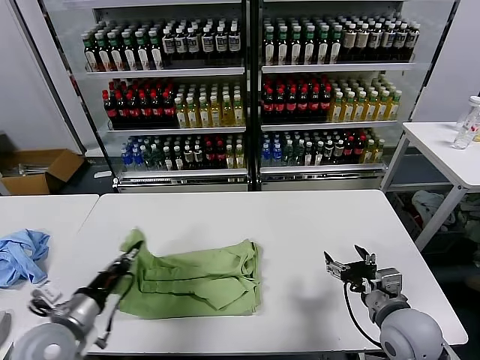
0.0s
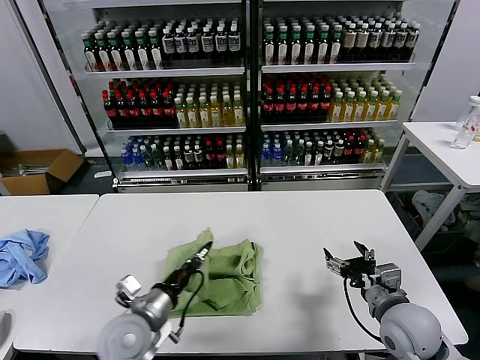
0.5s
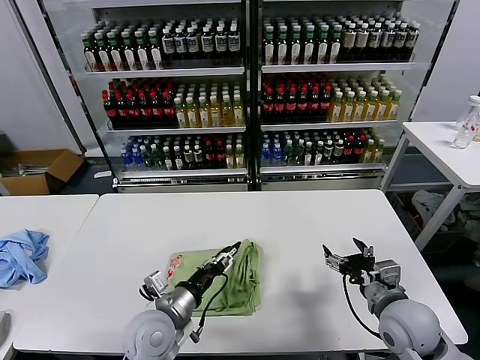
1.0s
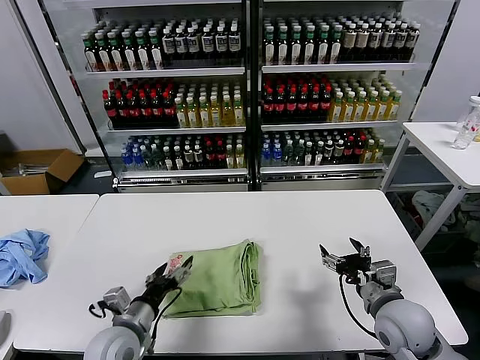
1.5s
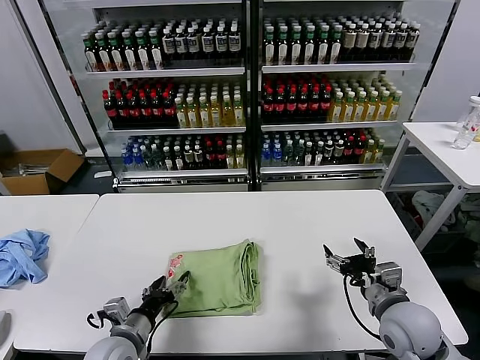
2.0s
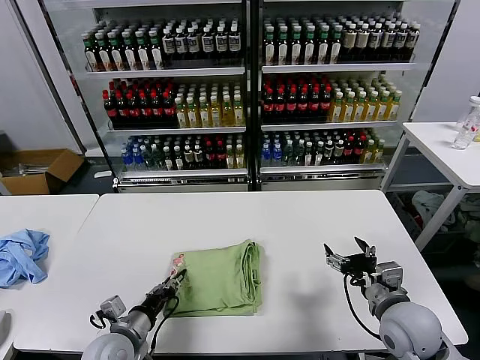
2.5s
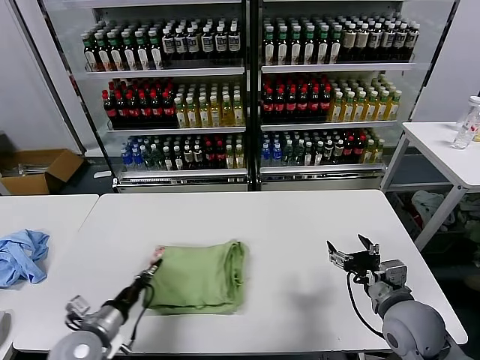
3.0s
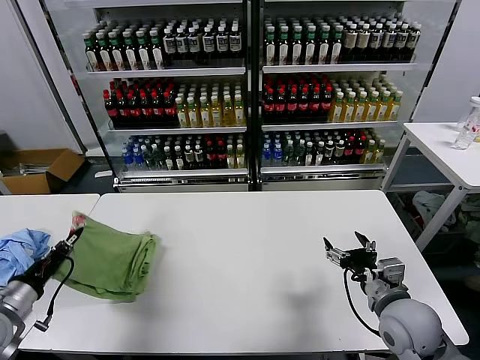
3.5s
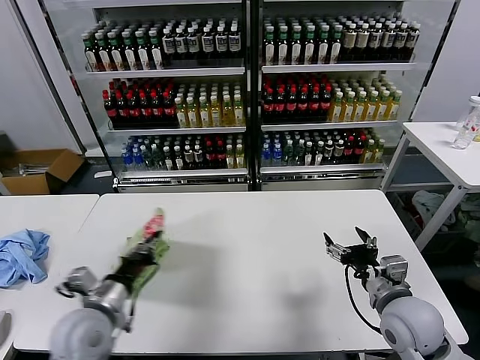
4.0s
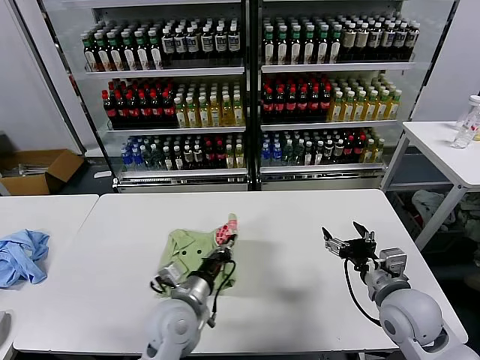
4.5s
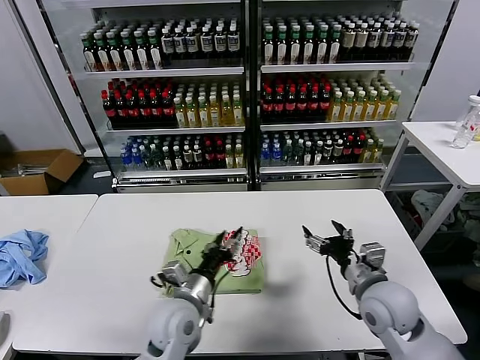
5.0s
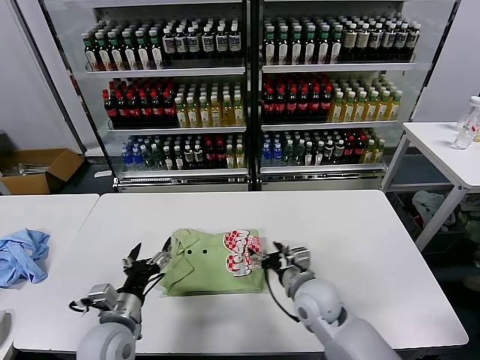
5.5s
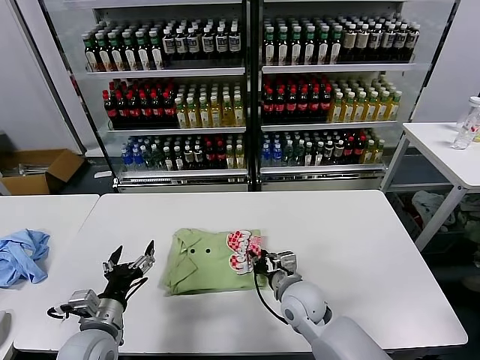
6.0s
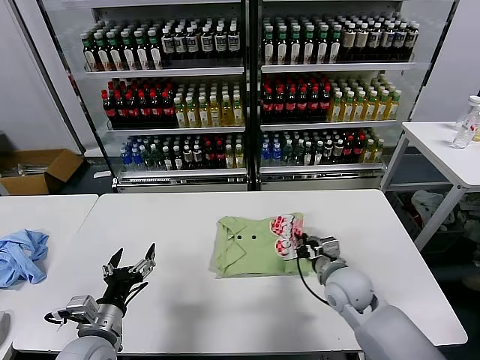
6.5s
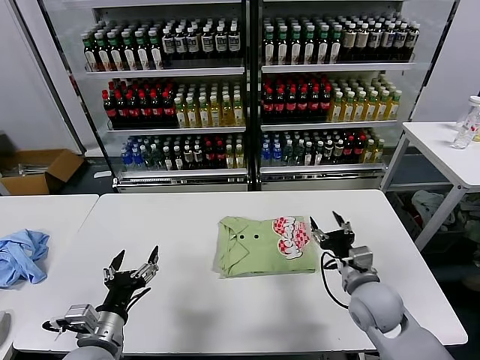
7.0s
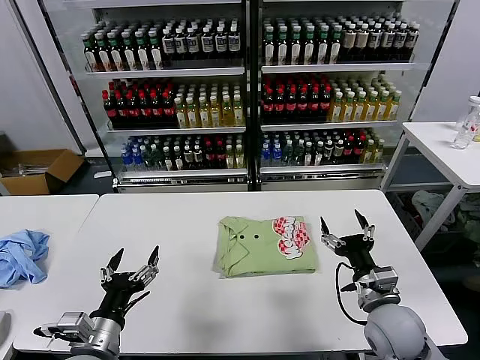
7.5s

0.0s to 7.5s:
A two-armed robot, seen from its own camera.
Task of the whole recording: fold and organize the clothes.
Step, 0.0s to 1.0s: use the left gripper to drag the left edge of the fabric to the left and folds it over the right edge.
Step, 1.5s to 4.5s: Flip the folded clothes over with left gripper.
Step, 5.0s to 6.5s: Drag the clothes to the center of the table.
0.0s to 2.0s: The left gripper moves to the right and downward, some 15 cm, and opens.
2.0s to 4.0s: The left gripper travels upward by roughly 10 cm, reaches approximately 20 cm to the left, then returns, and closes its fingers.
4.0s to 5.5s: The right gripper moves to the left, forward and downward, about 15 cm; the left gripper goes approximately 5 cm downward, reaches about 20 cm to the right, then returns, and opens.
5.5s to 7.5s: The left gripper goes approximately 5 cm backward. Meanwhile the right gripper is displaced to the right and backward by about 15 cm, and closes and opens again.

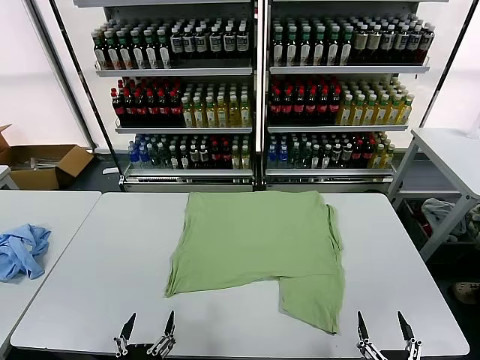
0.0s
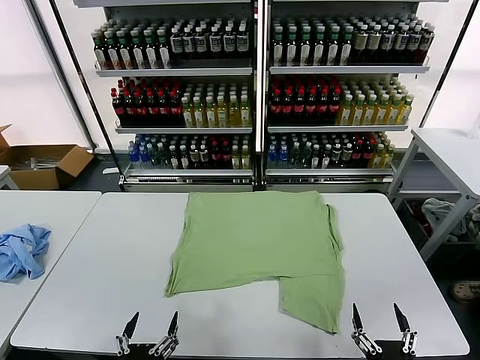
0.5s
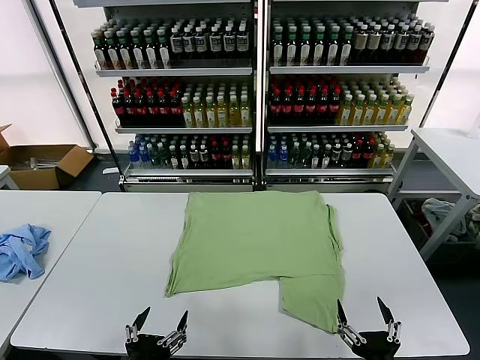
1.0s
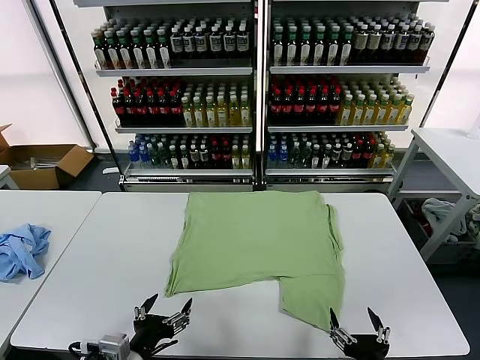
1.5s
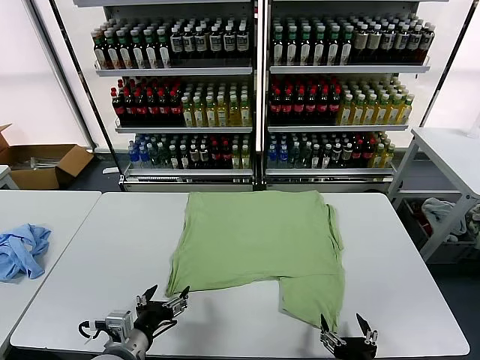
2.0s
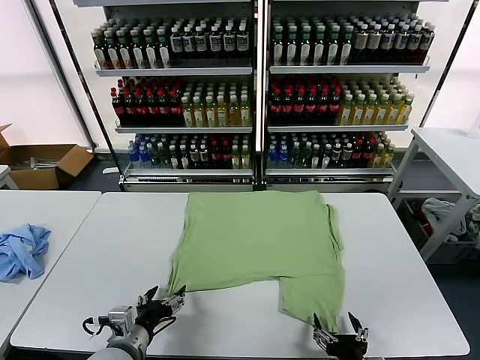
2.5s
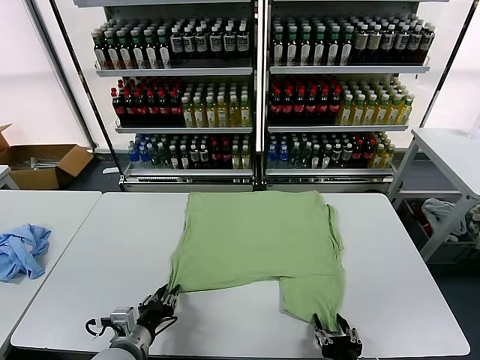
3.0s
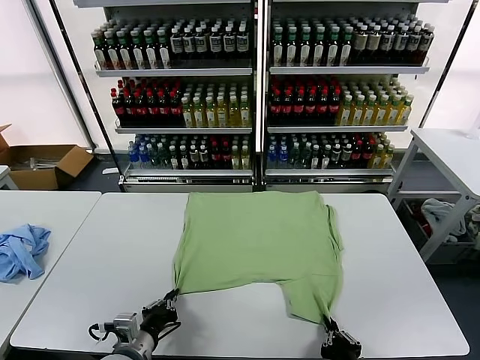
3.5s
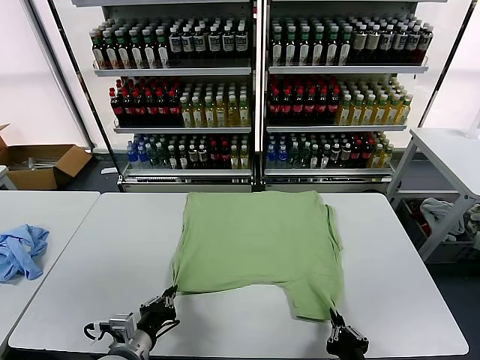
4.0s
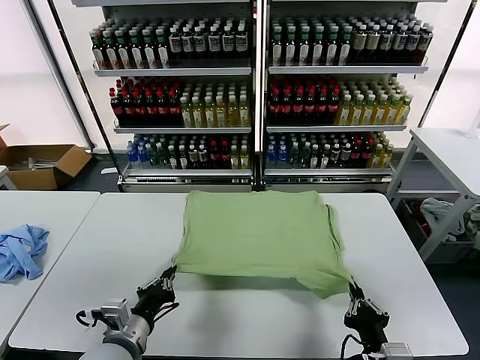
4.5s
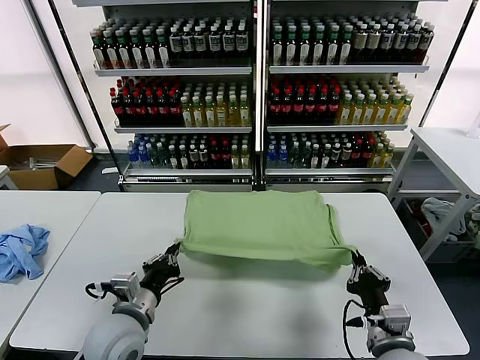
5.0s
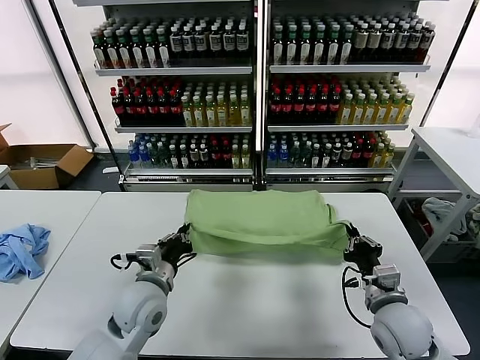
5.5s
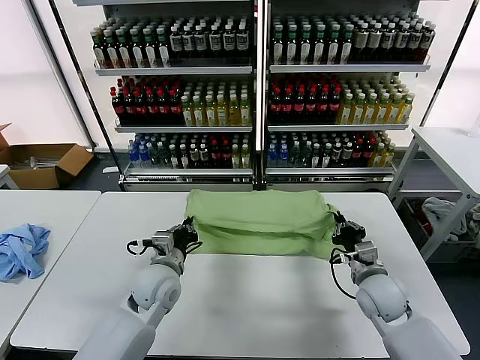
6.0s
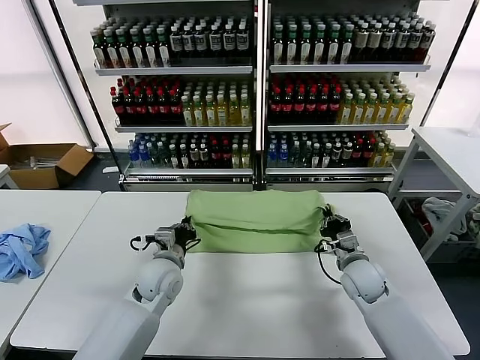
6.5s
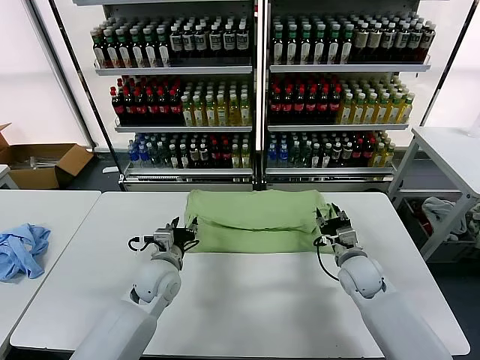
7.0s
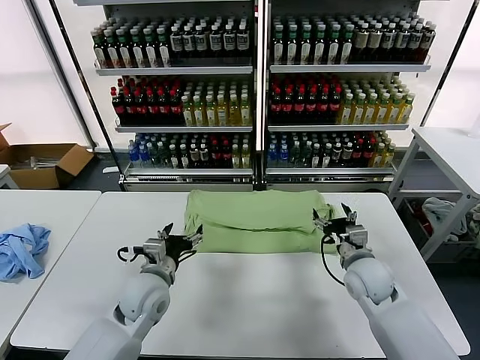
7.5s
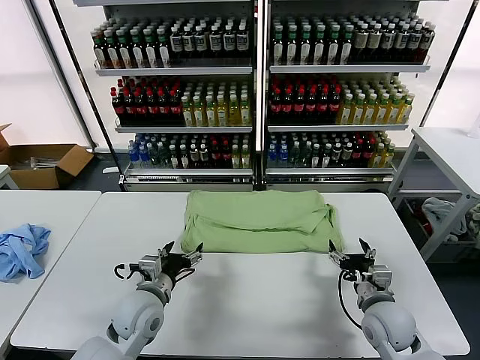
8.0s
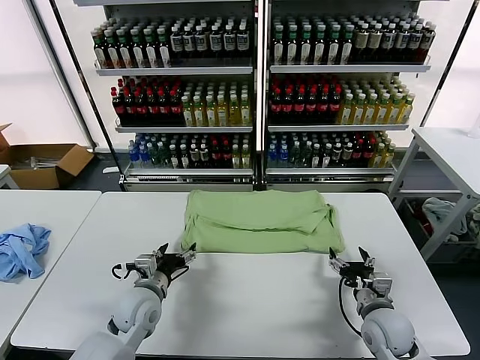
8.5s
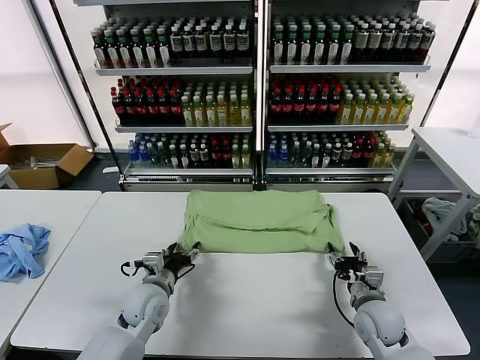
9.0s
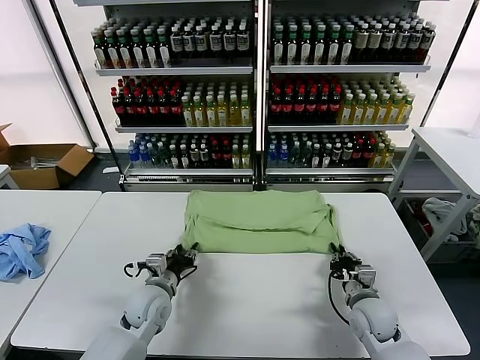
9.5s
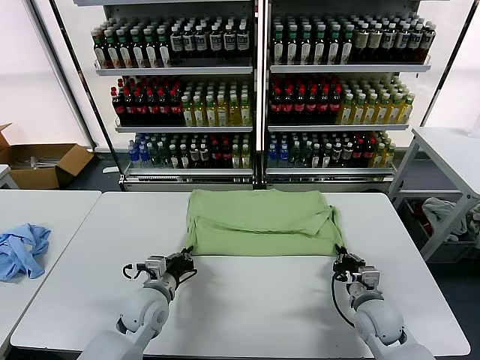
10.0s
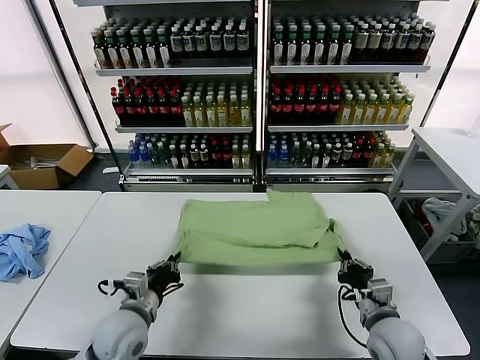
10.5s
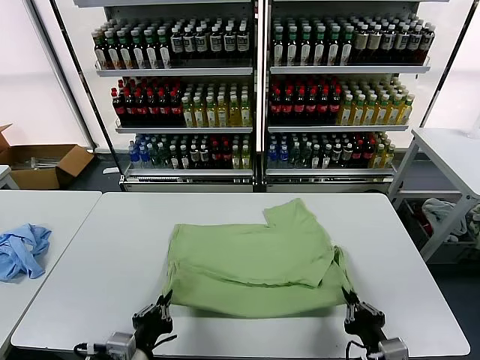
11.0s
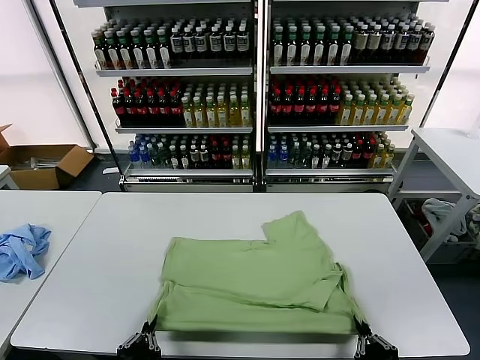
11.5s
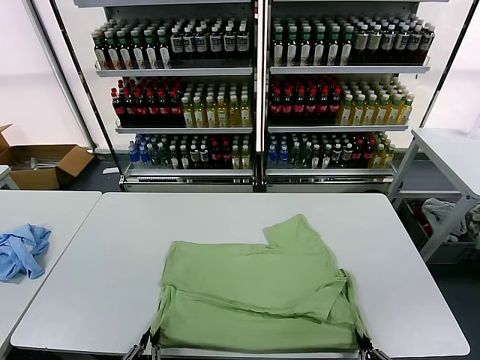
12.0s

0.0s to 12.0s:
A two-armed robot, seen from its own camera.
Task of the whole recording: fold and organize the clothes.
Step, 0.0s to 3.5s: use both grippers simultaneously to clamp the lower edge of the clothing fabric.
Step, 4.0s to 6.5s: use both grippers to drag the lower edge of the fabric forward and fold it over the upper edge.
2.0s to 4.0s: The right gripper closes. The left gripper closes up.
4.0s to 6.0s: The grippers both shift forward by about 20 cm.
6.0s to 8.0s: The grippers both shift backward by roughly 5 cm. The left gripper opens up. The right gripper opens up.
8.0s to 10.0s: The left gripper closes up, while the right gripper closes its fingers.
10.0s to 12.0s: Both grippers travel together backward, roughly 25 cm.

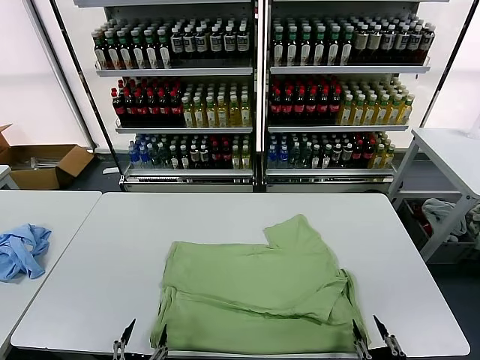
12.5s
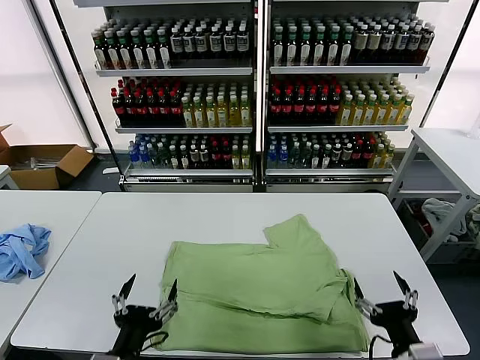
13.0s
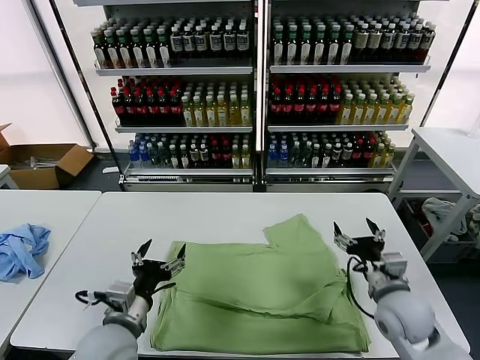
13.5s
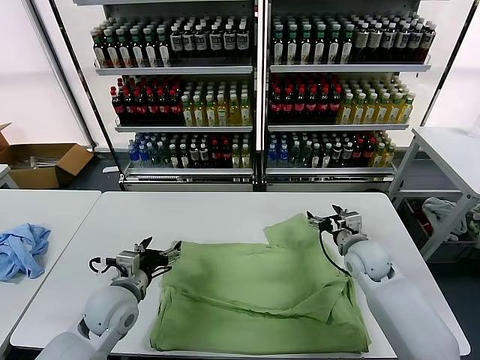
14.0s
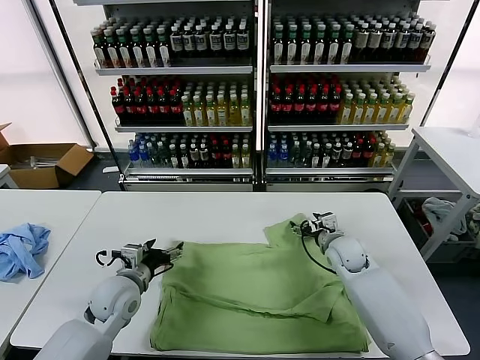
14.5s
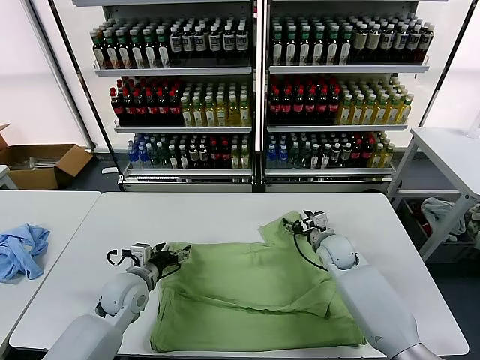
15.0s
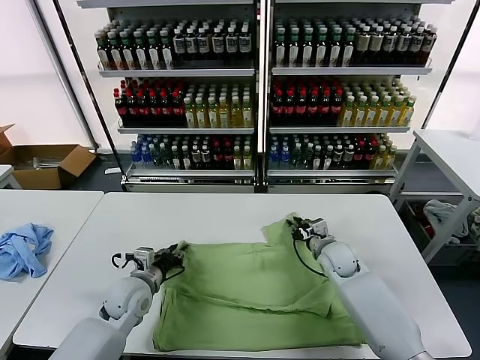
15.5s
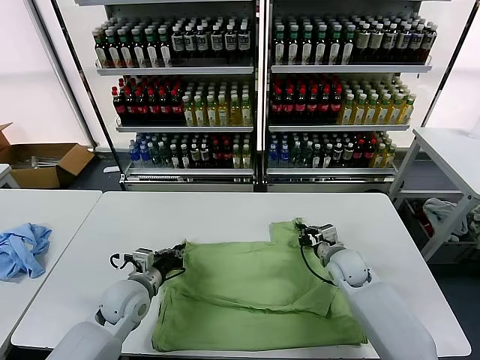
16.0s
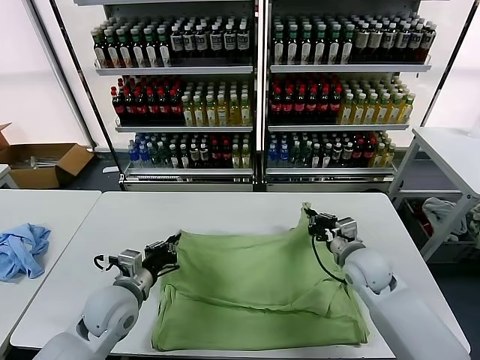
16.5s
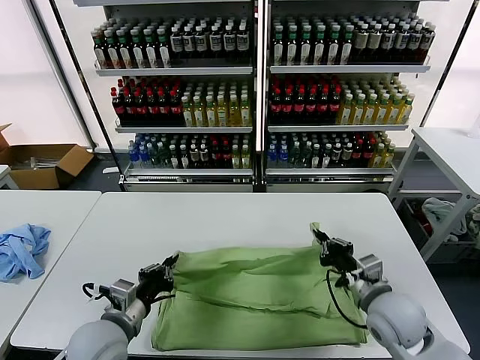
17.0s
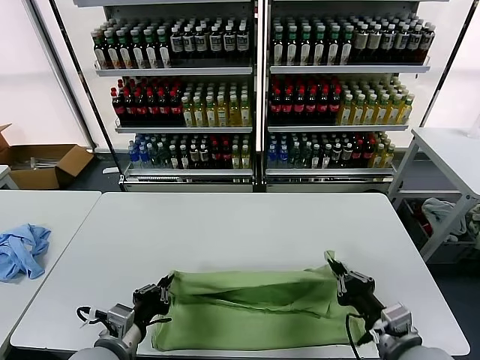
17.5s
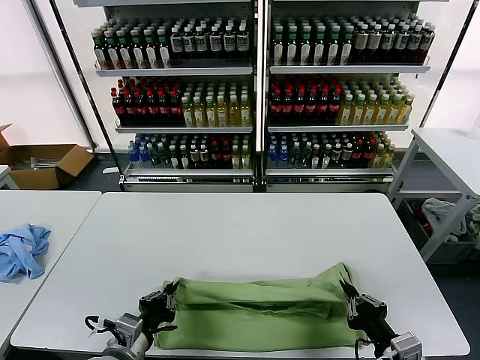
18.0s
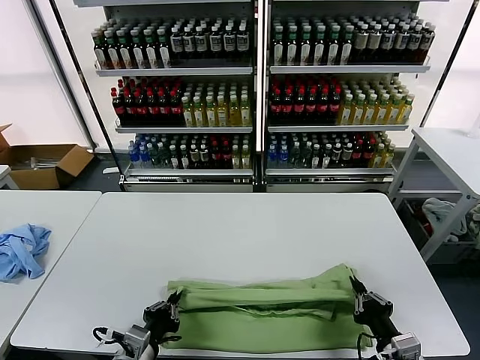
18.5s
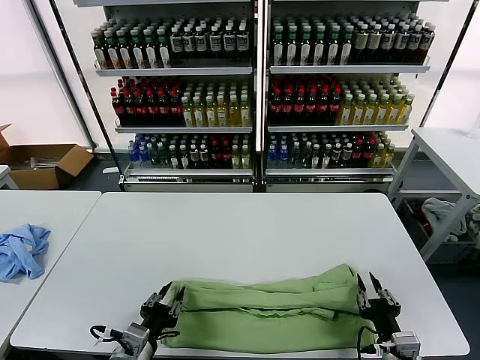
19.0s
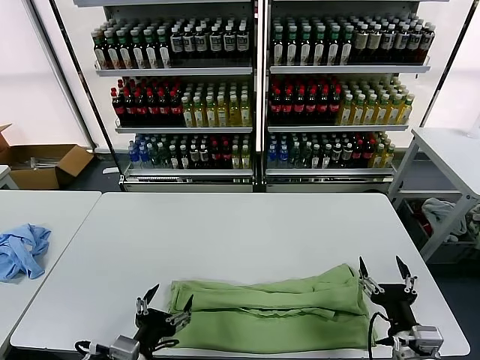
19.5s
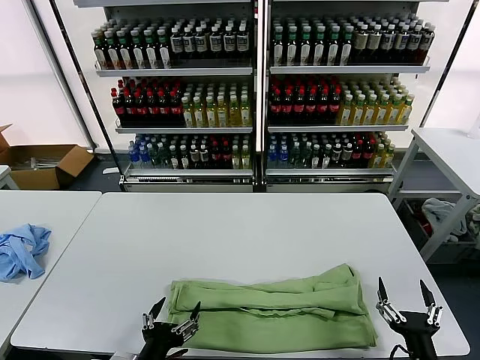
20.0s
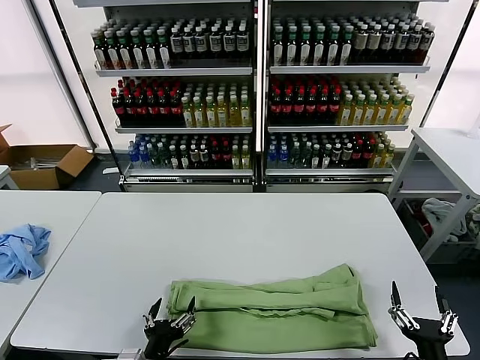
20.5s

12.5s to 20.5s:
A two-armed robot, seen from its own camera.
Task of the whole recording: fold and organize the clothes.
Step, 12.5s to 15.5s: use both grippers simultaneously to clamp the upper edge of the clothing fabric.
Step, 16.0s to 19.0s: use both grippers to drag the upper edge of the fabric backward and fold it over the lower edge.
12.5s to 14.5s: The two grippers go approximately 35 cm forward.
14.5s to 16.5s: The left gripper closes its fingers, while the right gripper is displaced backward and upward by some 10 cm, and closes.
16.5s to 18.5s: The left gripper travels backward by approximately 15 cm. The right gripper travels backward by approximately 20 cm.
18.5s to 20.5s: The right gripper is displaced backward by approximately 5 cm, and opens its fingers. Meanwhile the left gripper shifts by about 5 cm, and opens its fingers.
